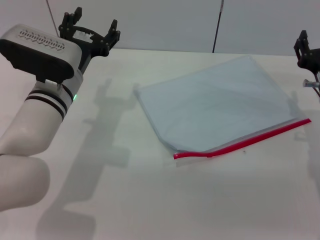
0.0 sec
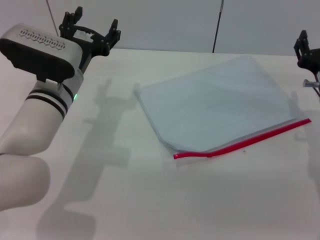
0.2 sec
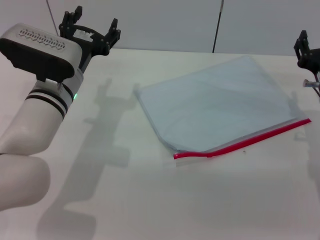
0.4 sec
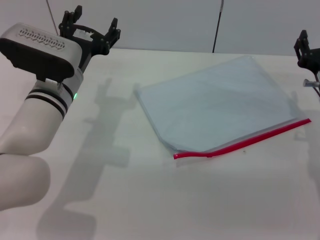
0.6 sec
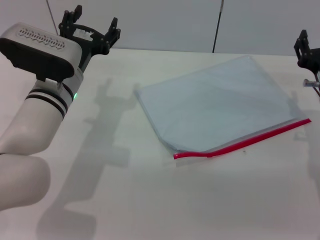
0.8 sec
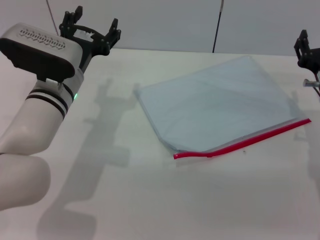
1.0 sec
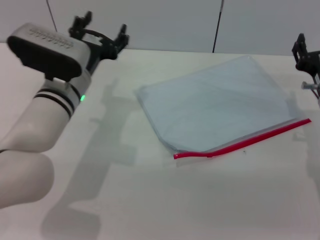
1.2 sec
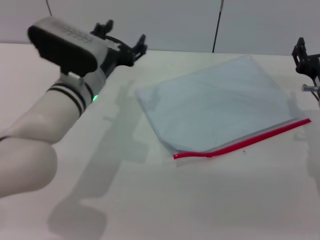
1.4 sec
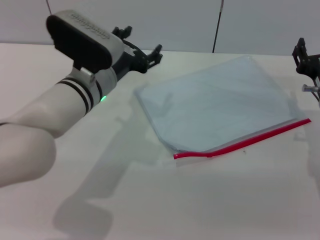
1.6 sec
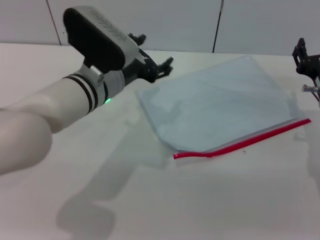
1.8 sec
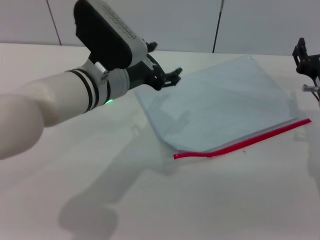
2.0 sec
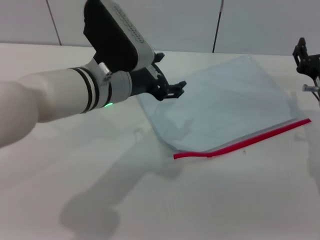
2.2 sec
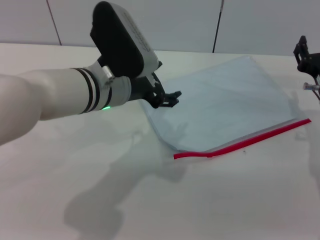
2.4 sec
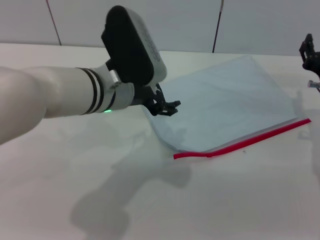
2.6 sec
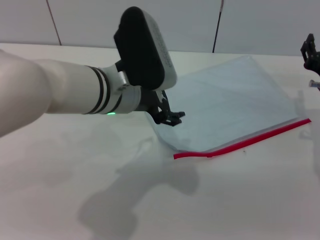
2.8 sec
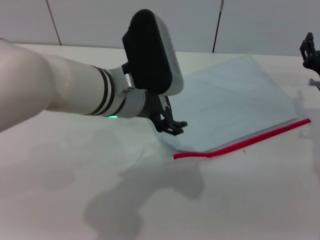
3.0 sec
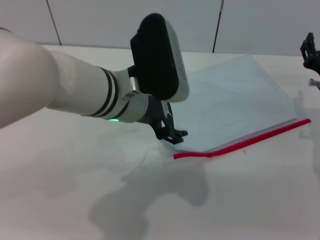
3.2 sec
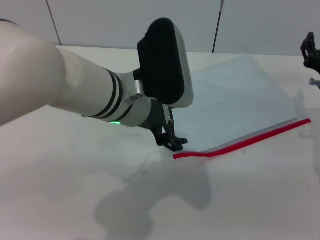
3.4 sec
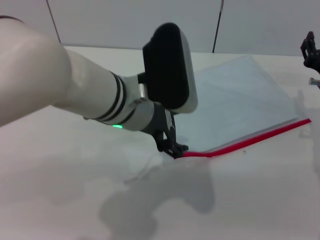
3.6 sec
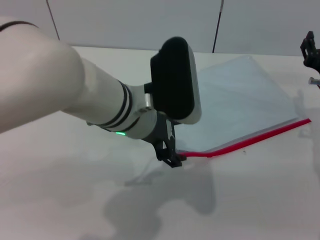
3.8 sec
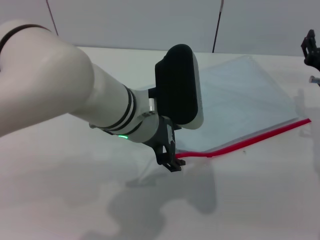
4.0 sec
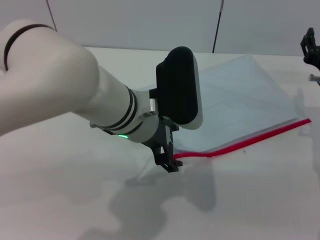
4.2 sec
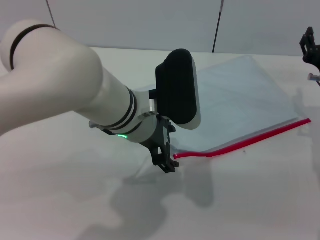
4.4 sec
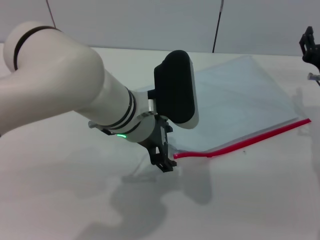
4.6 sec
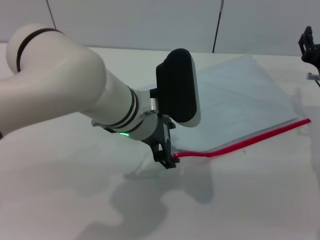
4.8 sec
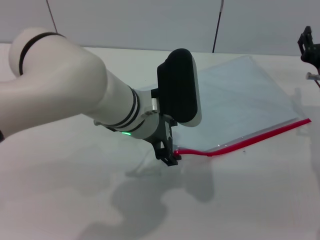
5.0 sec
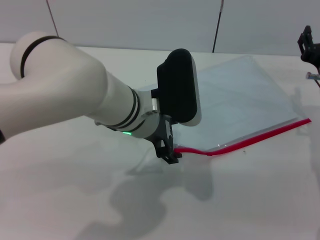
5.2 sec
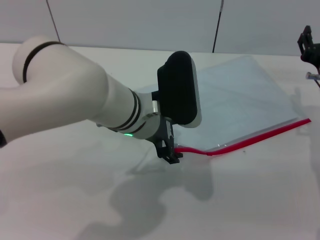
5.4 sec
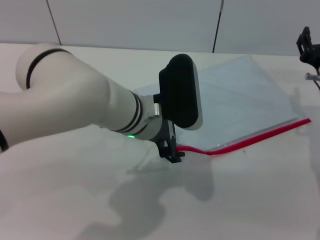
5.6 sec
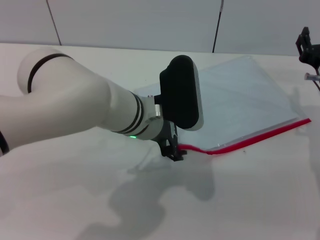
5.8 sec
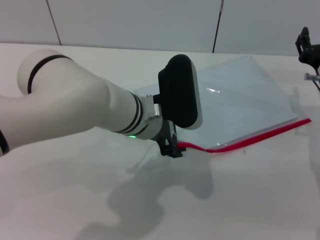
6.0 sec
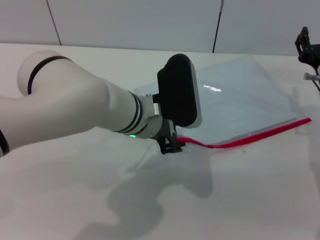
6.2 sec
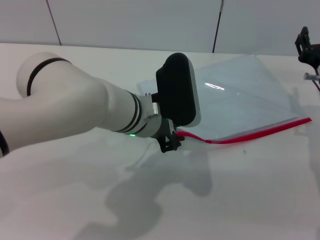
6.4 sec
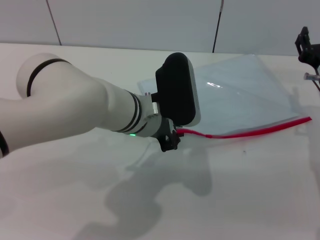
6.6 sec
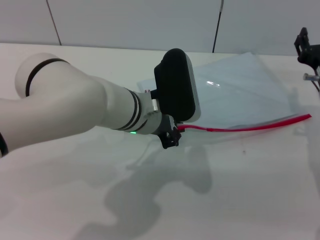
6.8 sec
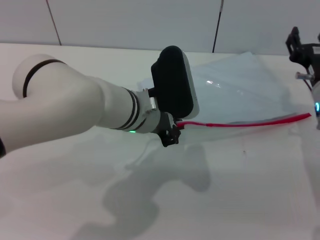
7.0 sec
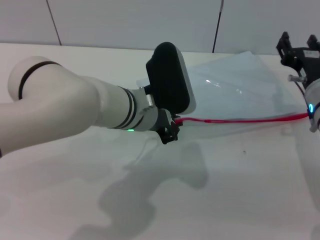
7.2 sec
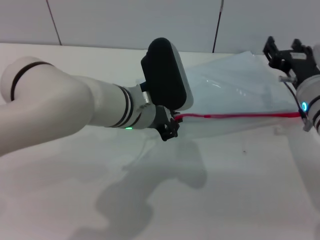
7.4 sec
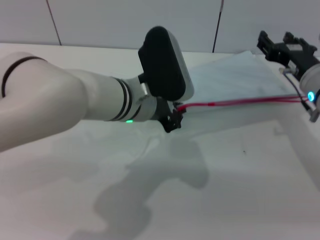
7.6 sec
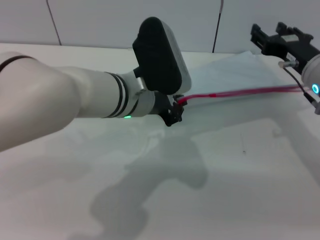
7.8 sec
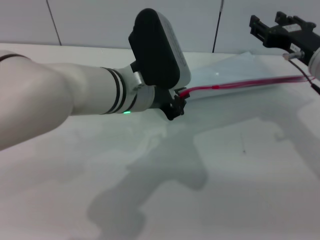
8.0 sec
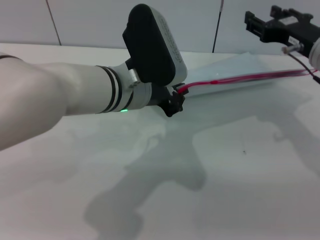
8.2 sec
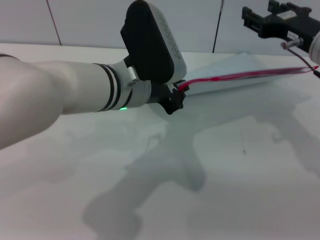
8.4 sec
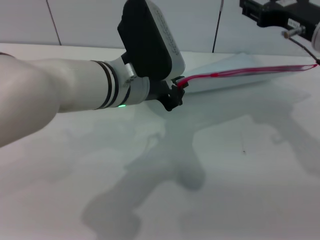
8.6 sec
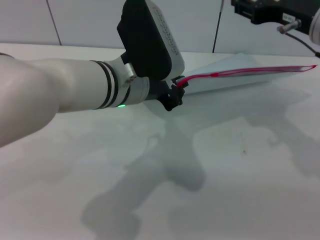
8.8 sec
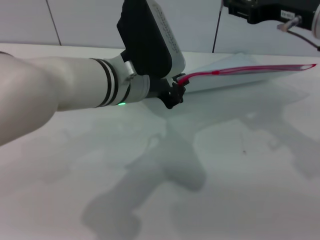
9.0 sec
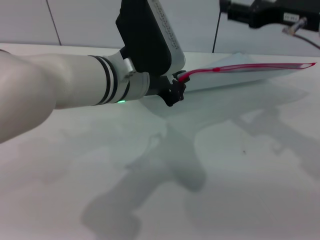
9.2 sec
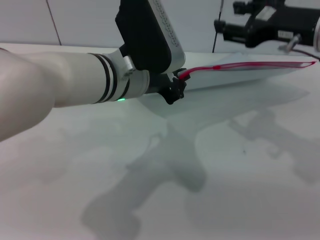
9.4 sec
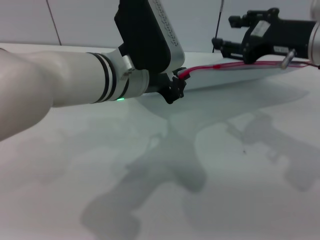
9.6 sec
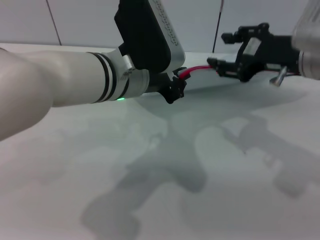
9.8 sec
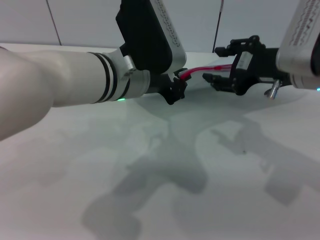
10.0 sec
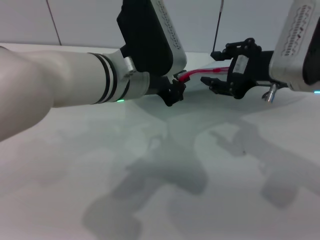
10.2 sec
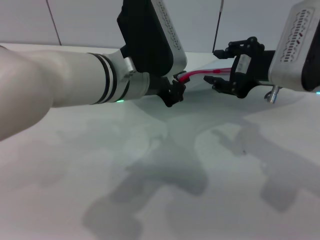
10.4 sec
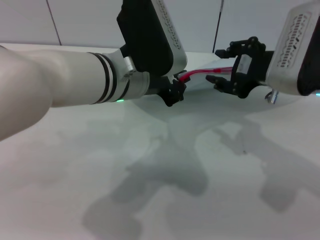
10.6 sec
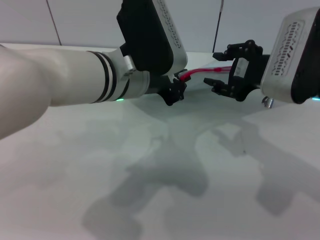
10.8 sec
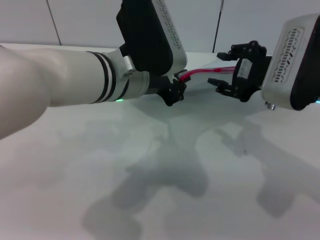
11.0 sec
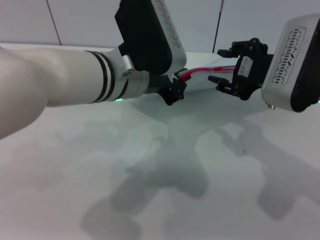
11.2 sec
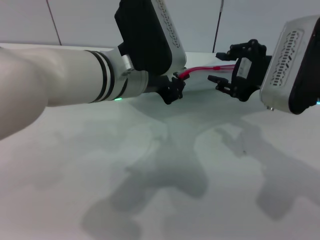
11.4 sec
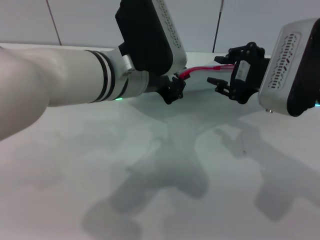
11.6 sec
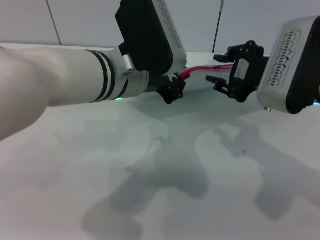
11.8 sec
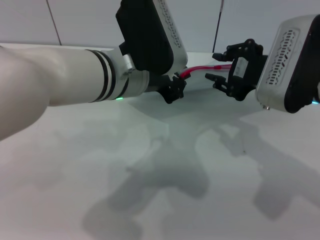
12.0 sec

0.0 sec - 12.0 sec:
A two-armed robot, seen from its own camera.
Step, 0.0 sec - 9.4 sec: Pick up the transparent plastic bag with the left gripper.
0.0 sec - 1.6 sec: The grippers stay close to where they were, moving slightly.
1.6 sec - 3.0 sec: The left gripper travels upward by roughly 5 cm.
3.0 sec - 6.0 sec: The grippers stay close to where they were, moving slightly.
6.0 sec - 7.6 sec: The left gripper closes up.
7.6 sec - 9.0 sec: The right gripper goes approximately 15 cm upward.
10.4 sec - 12.0 sec: The grippers stay close to where they were, moving slightly.

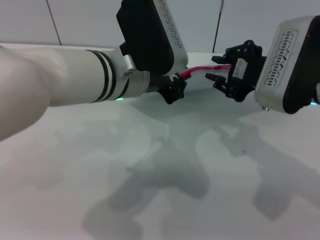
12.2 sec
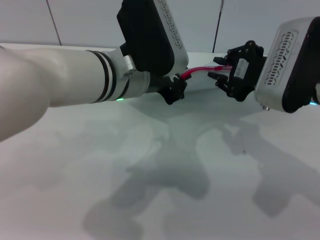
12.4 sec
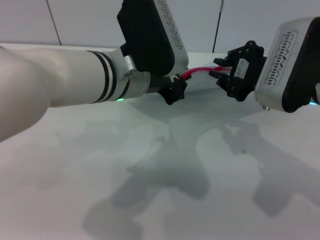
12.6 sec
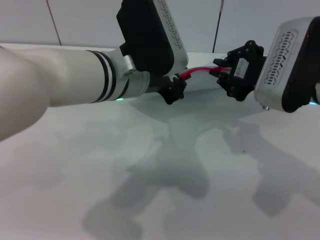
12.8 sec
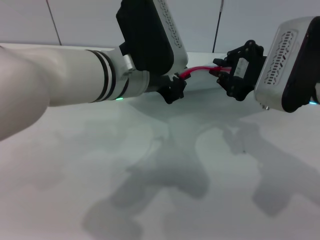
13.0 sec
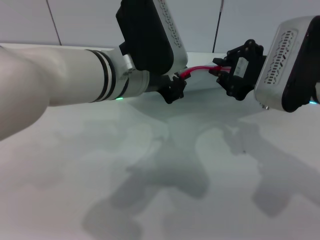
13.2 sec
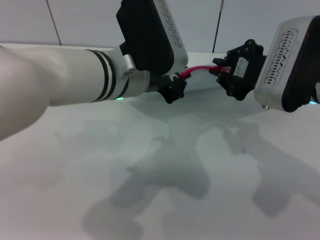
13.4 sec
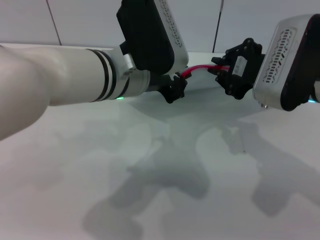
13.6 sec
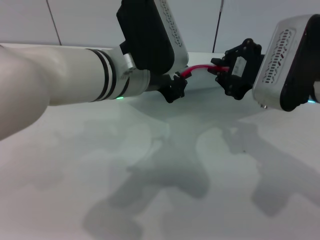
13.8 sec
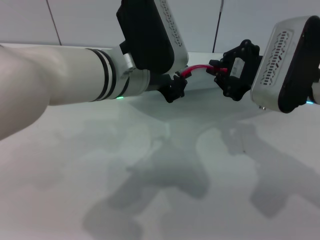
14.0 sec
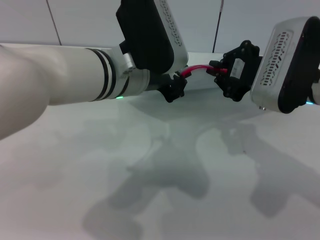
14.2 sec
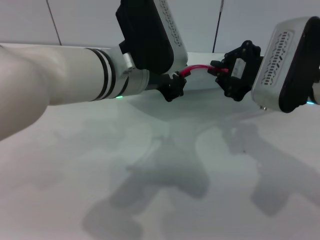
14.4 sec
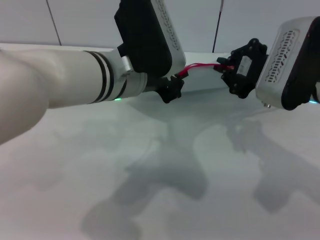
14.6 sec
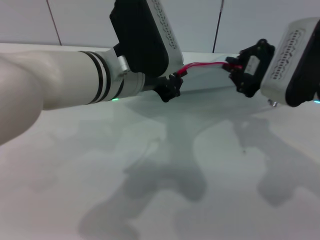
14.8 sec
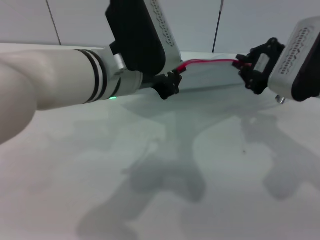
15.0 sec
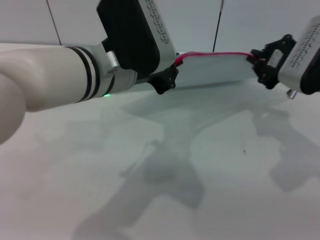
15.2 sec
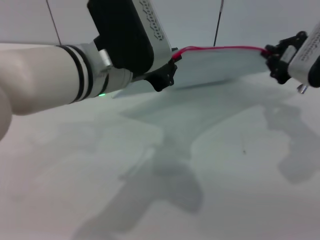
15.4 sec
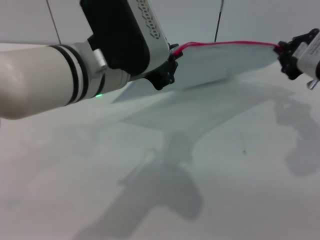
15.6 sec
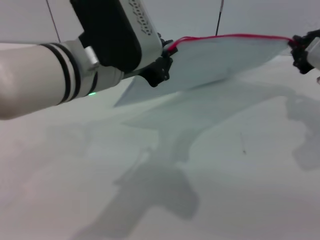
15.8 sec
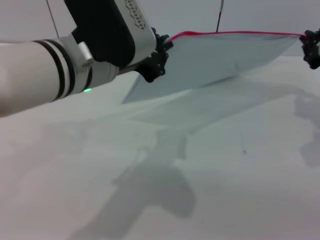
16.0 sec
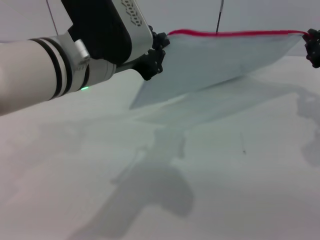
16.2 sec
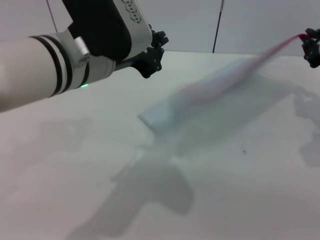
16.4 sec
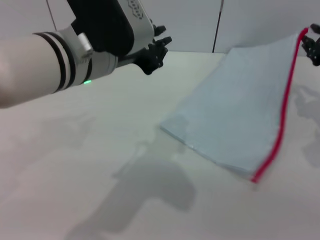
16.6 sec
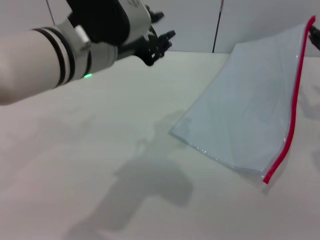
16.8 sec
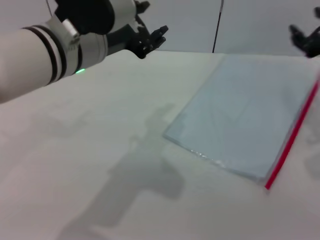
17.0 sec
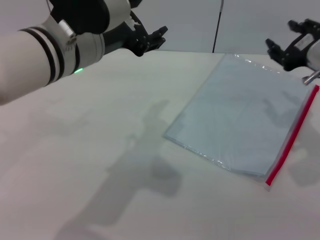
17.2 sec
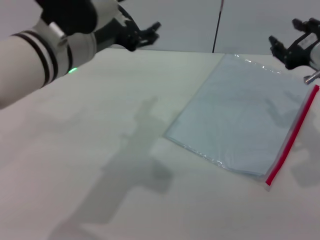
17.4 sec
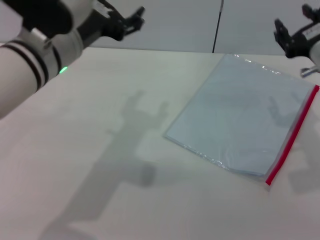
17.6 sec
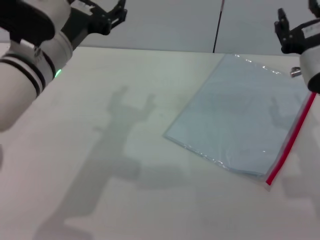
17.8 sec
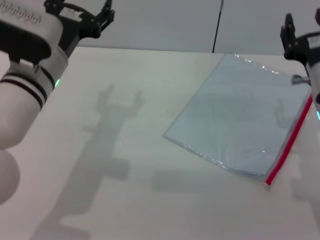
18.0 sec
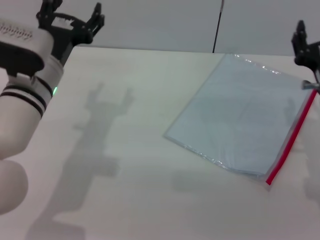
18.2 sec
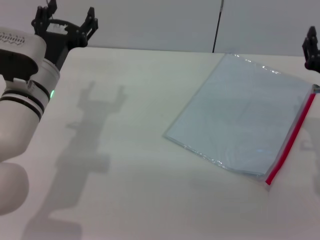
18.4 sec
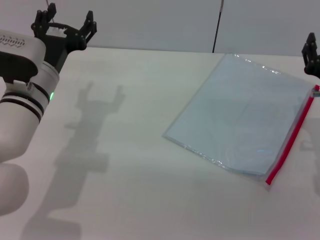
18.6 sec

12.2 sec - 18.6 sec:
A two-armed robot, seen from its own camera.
Step, 12.2 sec - 16.2 sec: Pulling up the zipper on the transparent plastic bag with the right gripper to close it.
Step, 16.4 sec - 17.6 sec: Place the transparent plastic bag.
12.2 sec - 13.8 sec: The right gripper closes up.
13.8 sec - 15.4 sec: The right gripper shifts roughly 5 cm to the right.
15.4 sec - 17.0 sec: The left gripper opens up. The right gripper opens up.
17.0 sec - 18.6 sec: The right gripper goes roughly 10 cm downward, while the left gripper is displaced downward and to the left by about 15 cm, and opens its fingers.

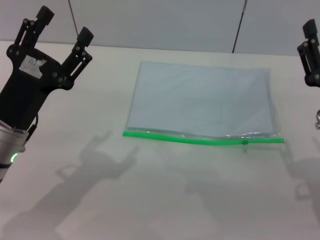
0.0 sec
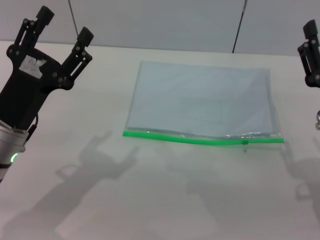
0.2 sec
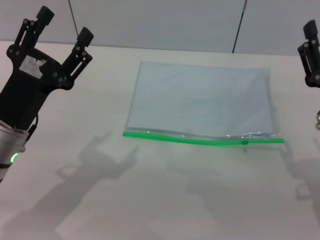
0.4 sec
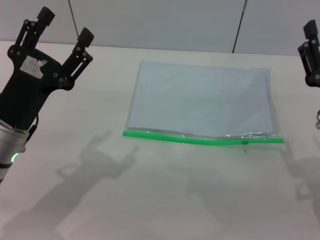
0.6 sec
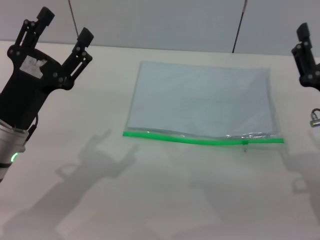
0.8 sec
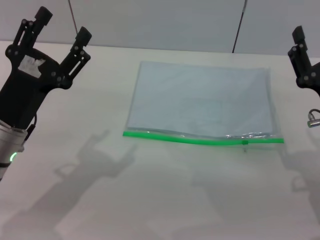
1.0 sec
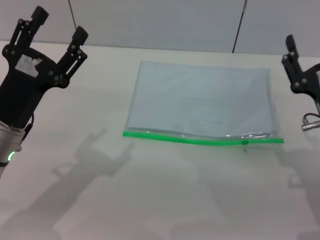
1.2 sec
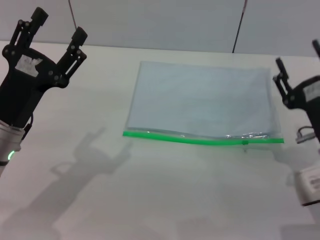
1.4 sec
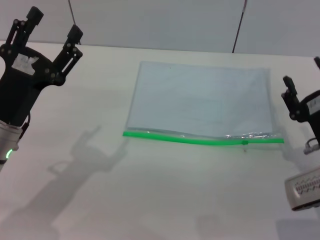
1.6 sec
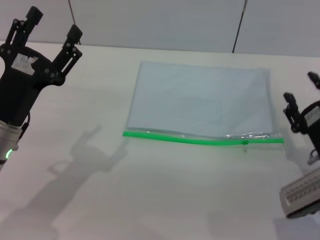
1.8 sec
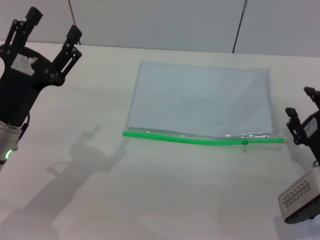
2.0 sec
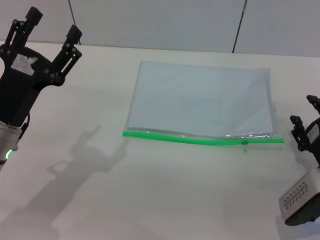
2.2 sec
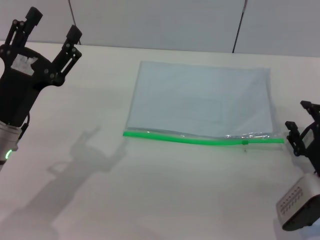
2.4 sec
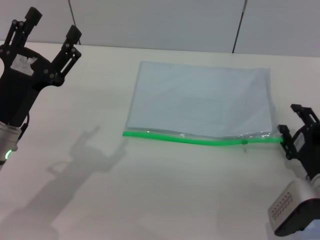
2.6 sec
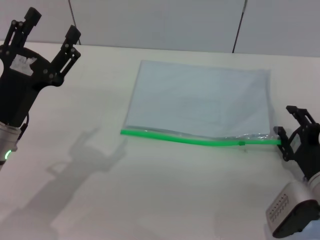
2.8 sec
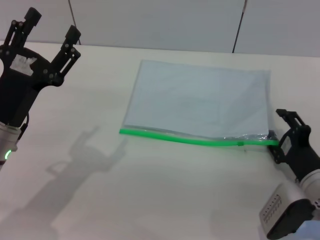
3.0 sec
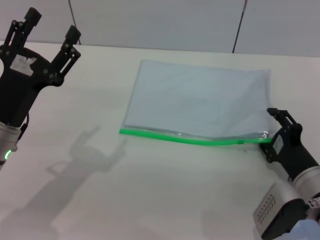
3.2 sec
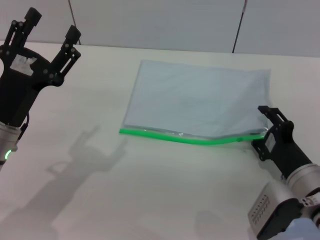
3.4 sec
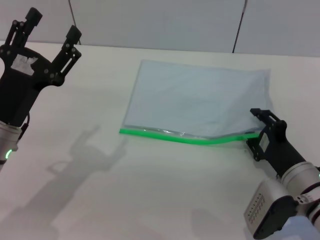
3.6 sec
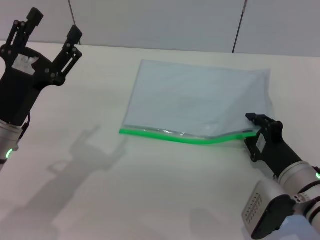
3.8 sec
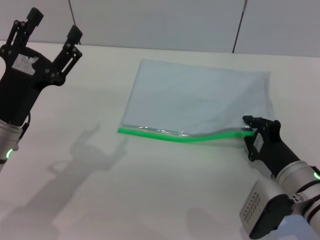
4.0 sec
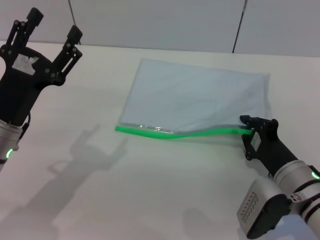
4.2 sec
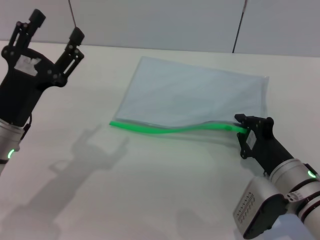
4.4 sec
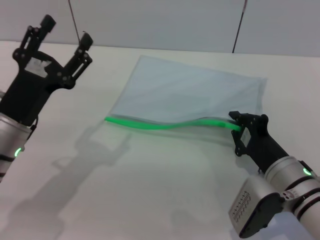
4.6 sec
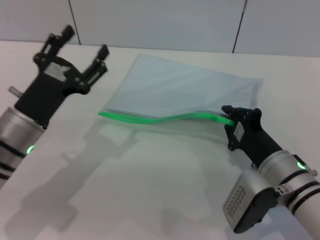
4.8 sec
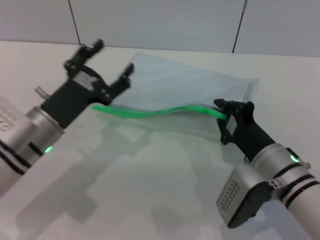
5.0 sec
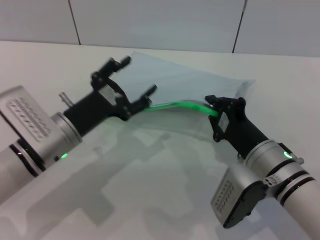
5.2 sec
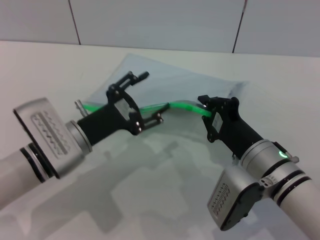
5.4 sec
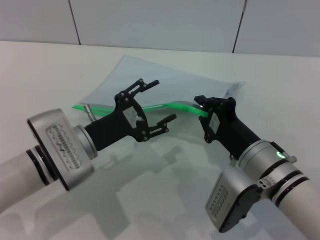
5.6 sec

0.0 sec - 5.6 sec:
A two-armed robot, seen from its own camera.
Step, 0.0 sec - 4.8 sec: Pick up the transparent plastic bag with the right gripper.
1.4 sec - 2.8 sec: The right gripper heads downward, covering approximately 5 cm.
2.8 sec - 4.2 sec: The right gripper closes.
4.2 sec - 5.6 sec: The right gripper moves to the left, approximately 5 cm; the left gripper goes roughly 5 cm to the right.
